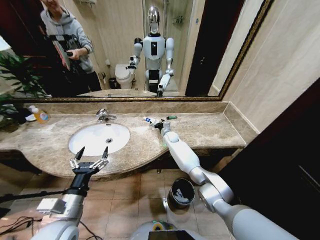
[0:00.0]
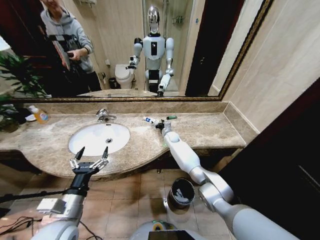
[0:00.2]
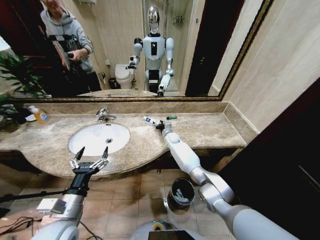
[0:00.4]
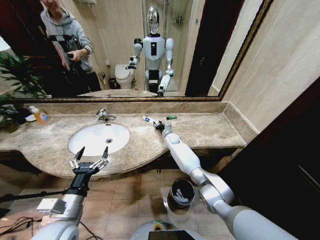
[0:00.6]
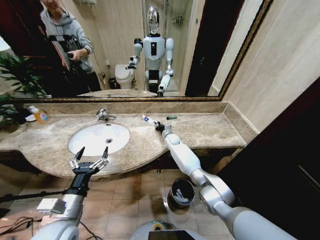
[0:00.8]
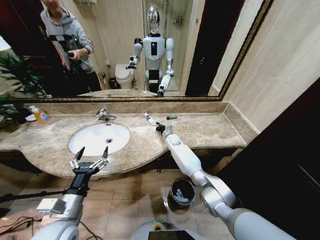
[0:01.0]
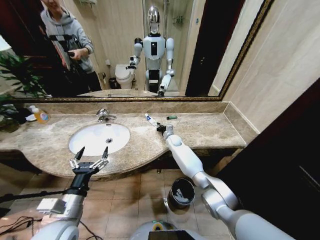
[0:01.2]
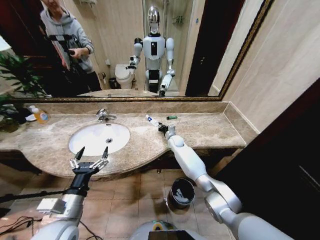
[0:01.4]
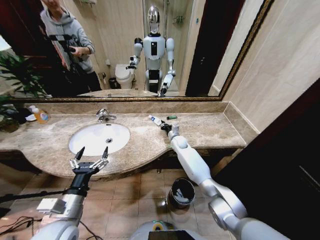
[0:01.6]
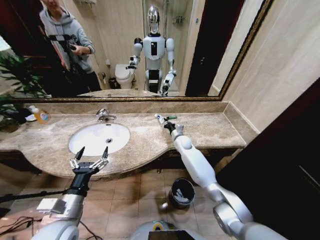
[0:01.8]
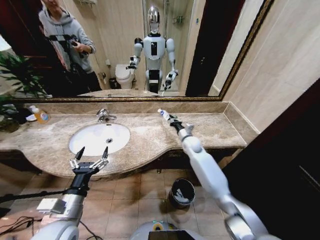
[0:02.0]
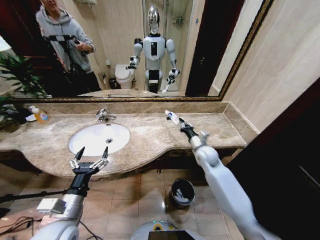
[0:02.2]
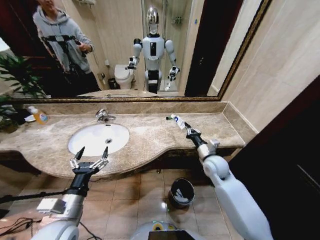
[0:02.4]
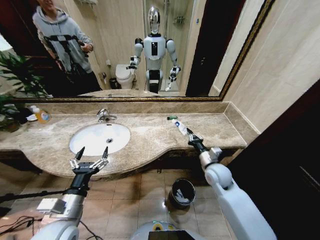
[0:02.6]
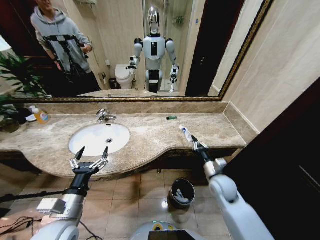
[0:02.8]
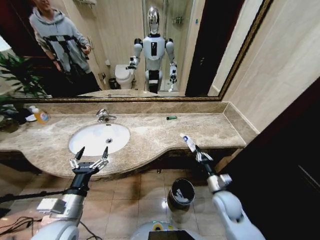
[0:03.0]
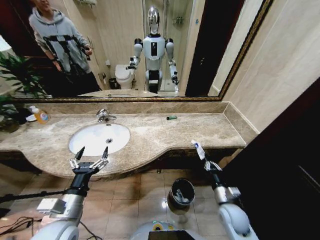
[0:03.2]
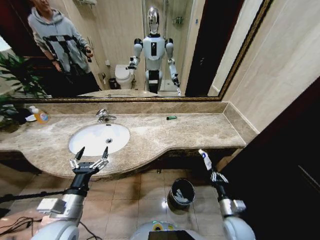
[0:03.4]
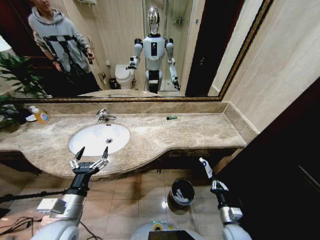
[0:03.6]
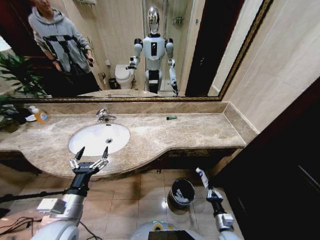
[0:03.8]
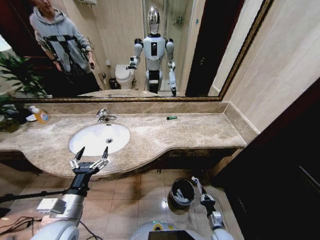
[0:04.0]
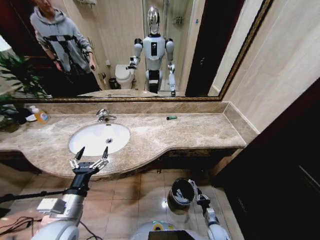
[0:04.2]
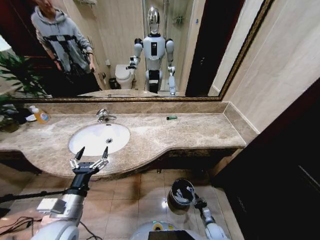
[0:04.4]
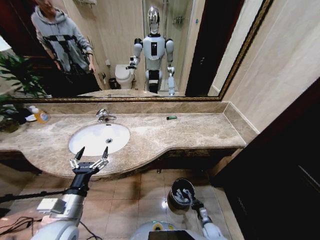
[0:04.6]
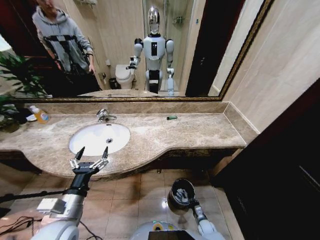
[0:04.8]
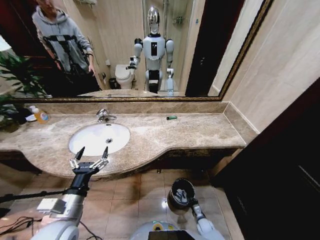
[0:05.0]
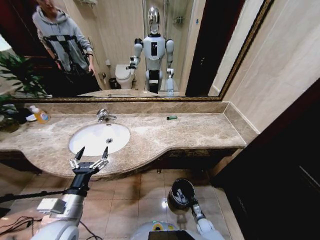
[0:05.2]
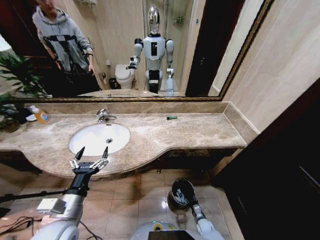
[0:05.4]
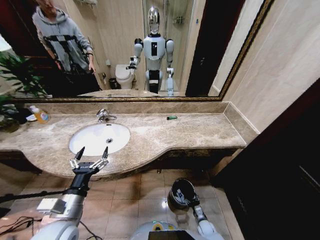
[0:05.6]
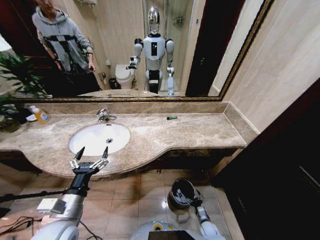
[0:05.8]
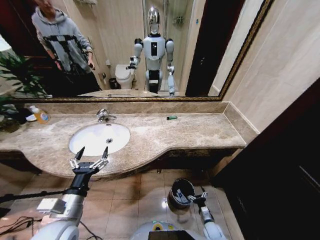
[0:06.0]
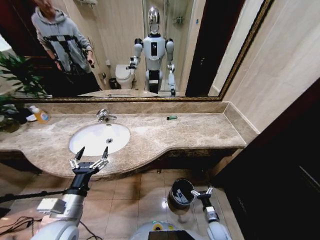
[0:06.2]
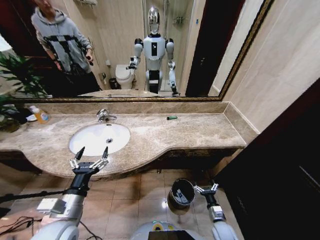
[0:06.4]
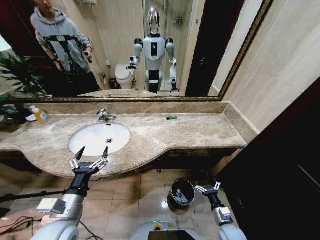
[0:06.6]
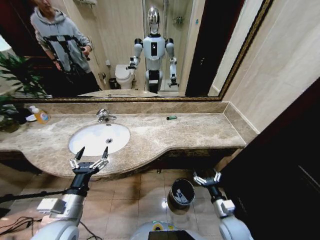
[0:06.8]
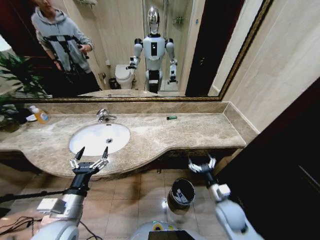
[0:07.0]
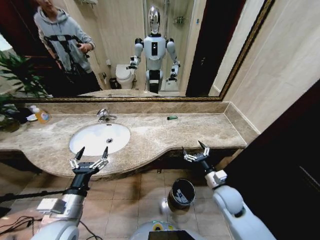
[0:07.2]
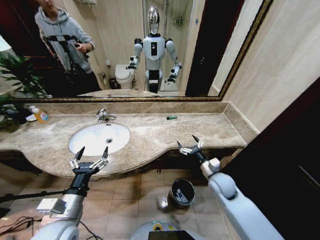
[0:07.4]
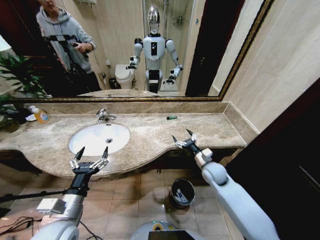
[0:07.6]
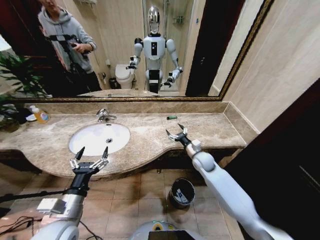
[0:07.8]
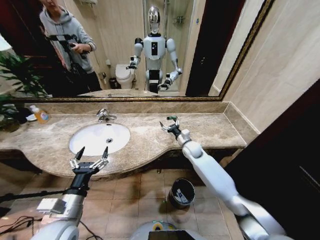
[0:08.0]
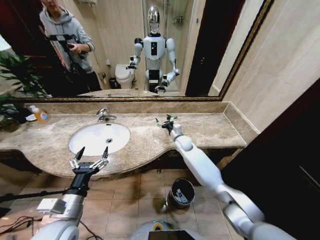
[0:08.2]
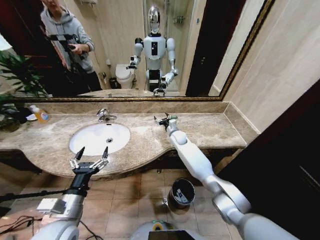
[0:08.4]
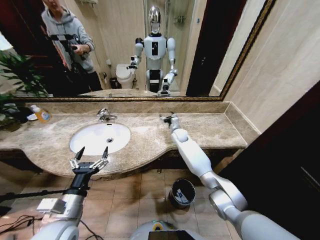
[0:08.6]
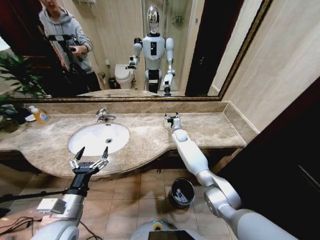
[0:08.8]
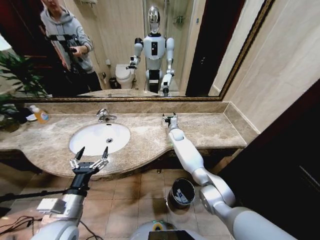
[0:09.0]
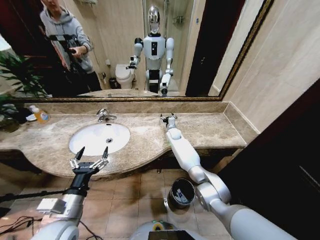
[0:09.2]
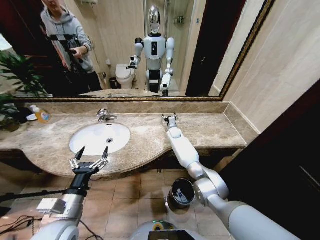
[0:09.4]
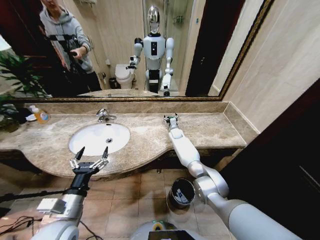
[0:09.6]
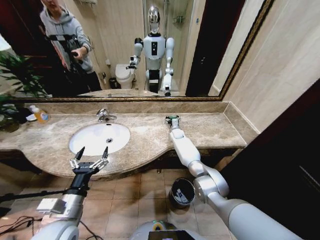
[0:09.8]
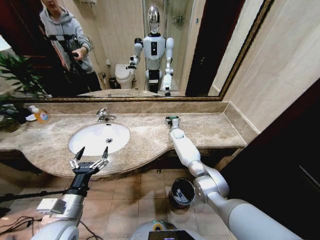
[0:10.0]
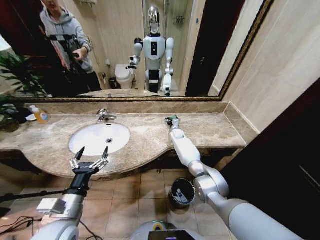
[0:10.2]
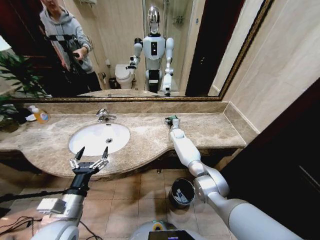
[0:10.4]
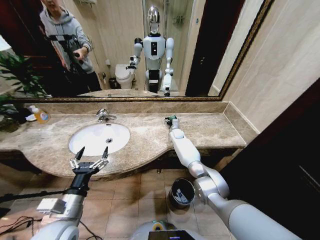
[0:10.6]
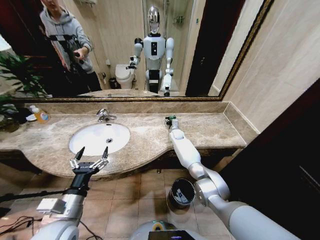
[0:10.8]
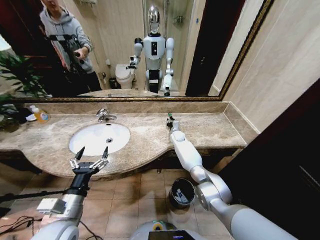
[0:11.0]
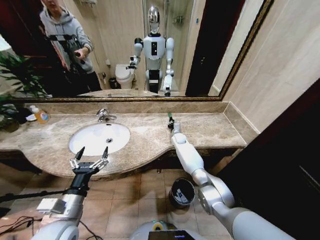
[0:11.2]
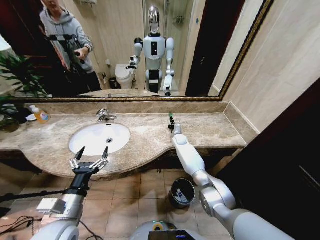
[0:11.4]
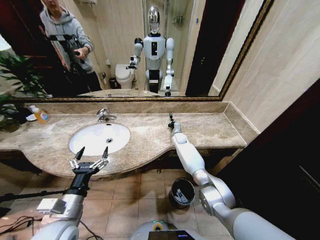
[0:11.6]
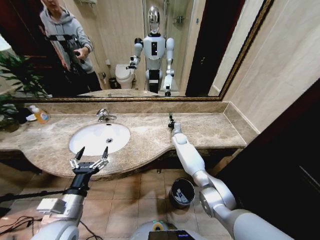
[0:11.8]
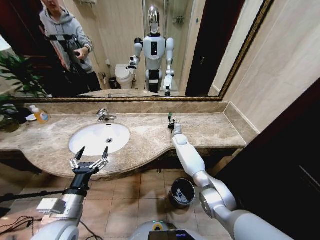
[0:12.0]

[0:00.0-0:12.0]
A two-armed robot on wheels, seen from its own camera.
Task of the whole recording: Pick up the trash from the sink and place it in the trash bin.
0:00.0 to 0:01.6: The right gripper ends up about 5 cm from where it was, and closes.
0:01.6 to 0:03.0: The right gripper goes some 35 cm backward and to the right.
0:03.0 to 0:04.4: The right gripper goes some 30 cm downward.
0:04.4 to 0:06.0: The right gripper opens.
0:06.0 to 0:07.6: The right gripper is displaced upward and forward by about 40 cm.
0:07.6 to 0:09.0: The right gripper goes approximately 30 cm forward and to the left.
0:09.0 to 0:10.4: There are only small adjustments of the grippers.
0:10.4 to 0:12.0: The right gripper closes up.

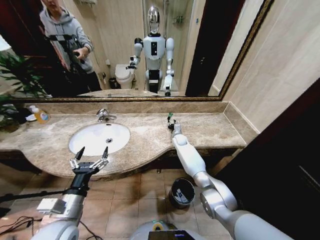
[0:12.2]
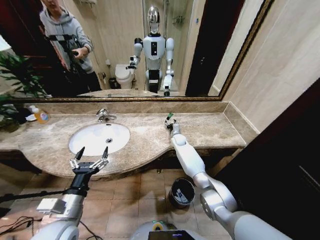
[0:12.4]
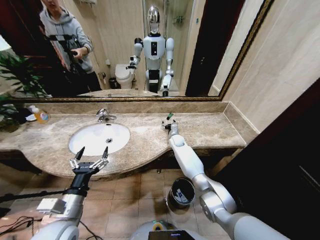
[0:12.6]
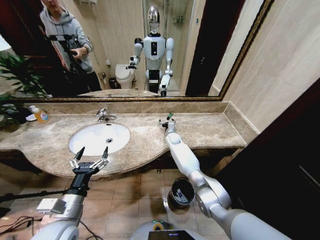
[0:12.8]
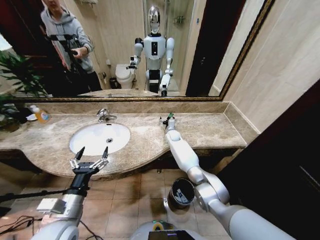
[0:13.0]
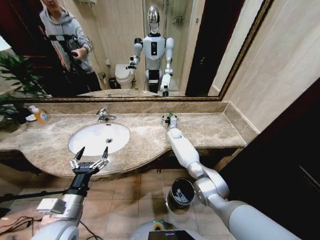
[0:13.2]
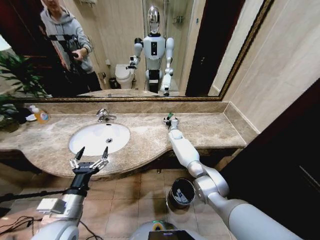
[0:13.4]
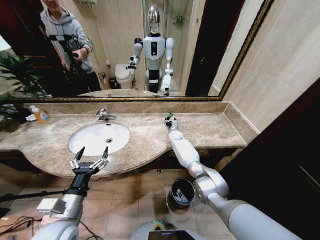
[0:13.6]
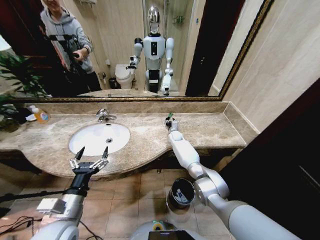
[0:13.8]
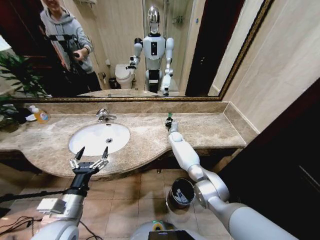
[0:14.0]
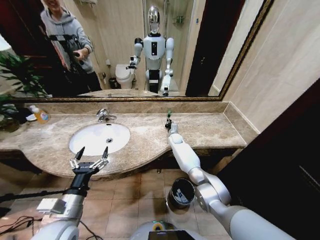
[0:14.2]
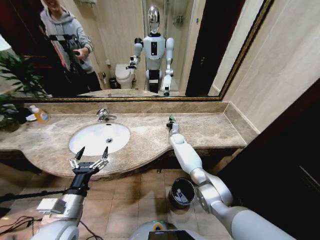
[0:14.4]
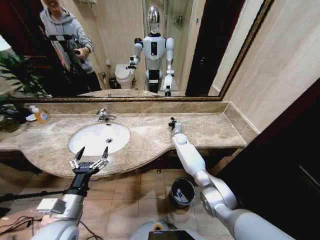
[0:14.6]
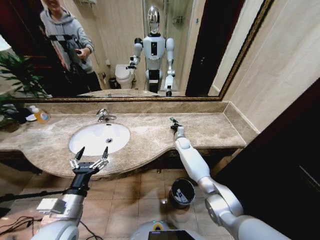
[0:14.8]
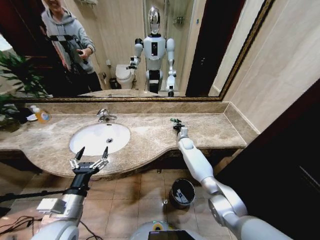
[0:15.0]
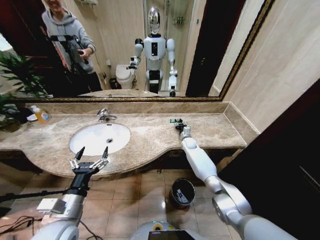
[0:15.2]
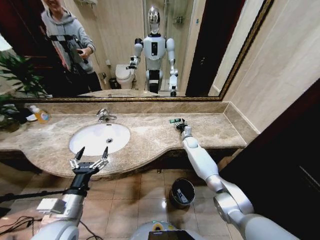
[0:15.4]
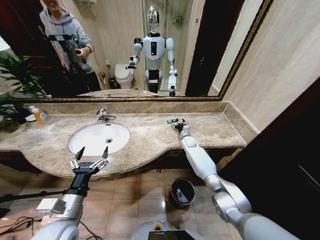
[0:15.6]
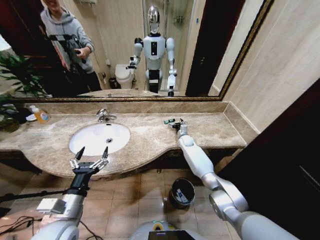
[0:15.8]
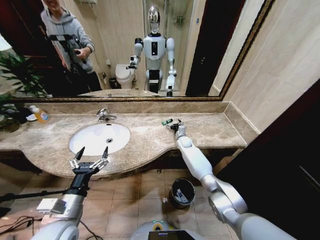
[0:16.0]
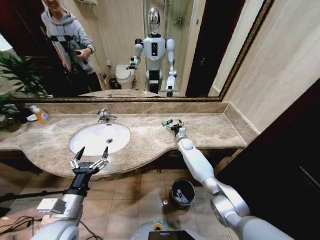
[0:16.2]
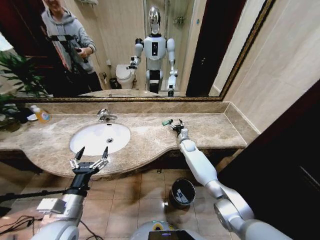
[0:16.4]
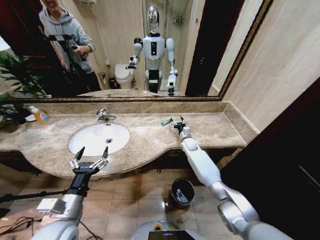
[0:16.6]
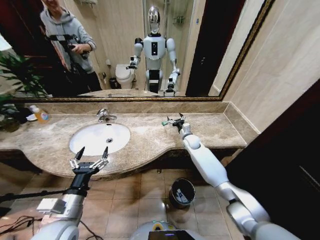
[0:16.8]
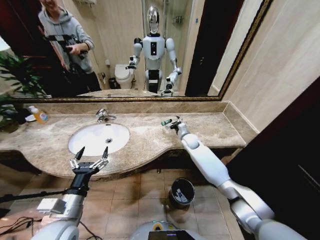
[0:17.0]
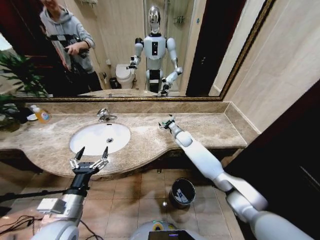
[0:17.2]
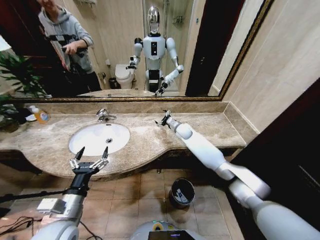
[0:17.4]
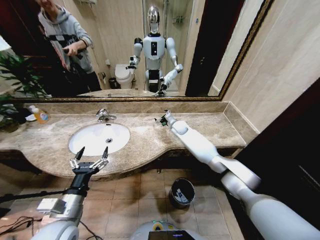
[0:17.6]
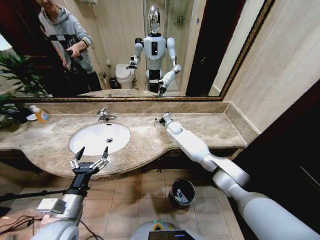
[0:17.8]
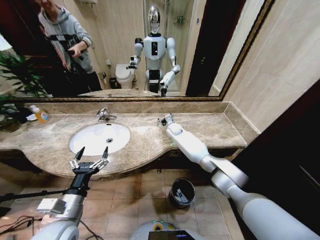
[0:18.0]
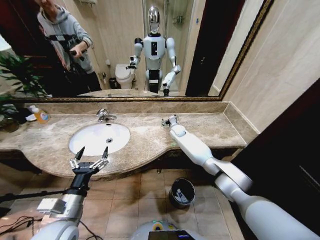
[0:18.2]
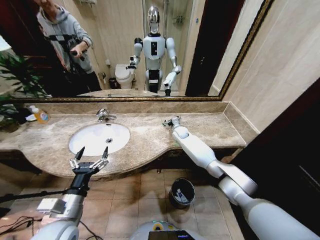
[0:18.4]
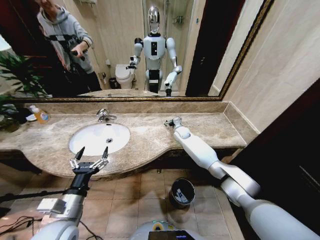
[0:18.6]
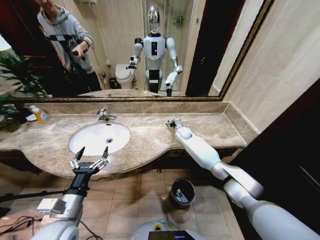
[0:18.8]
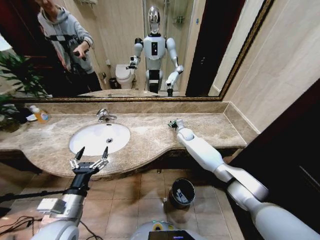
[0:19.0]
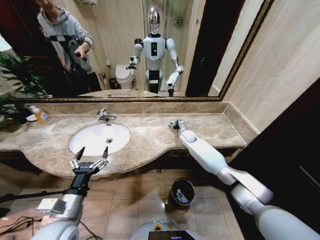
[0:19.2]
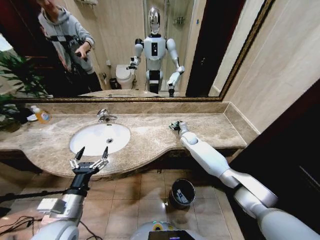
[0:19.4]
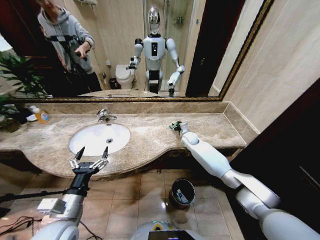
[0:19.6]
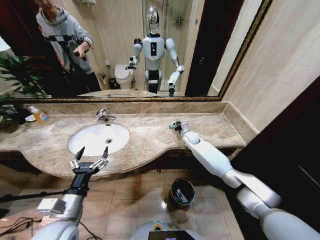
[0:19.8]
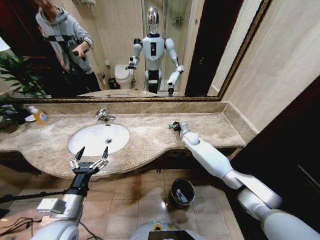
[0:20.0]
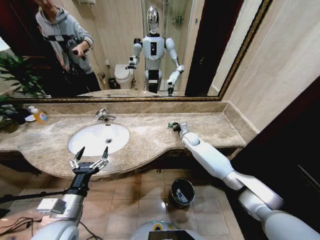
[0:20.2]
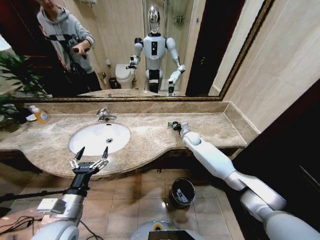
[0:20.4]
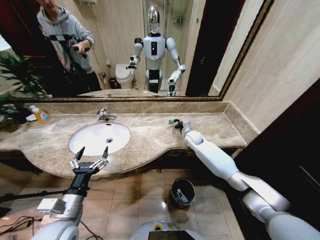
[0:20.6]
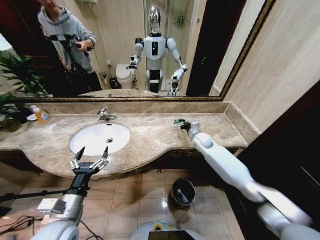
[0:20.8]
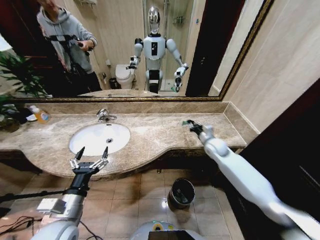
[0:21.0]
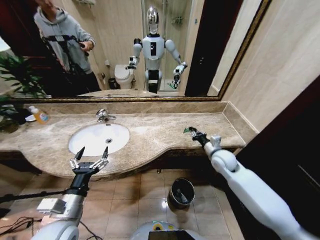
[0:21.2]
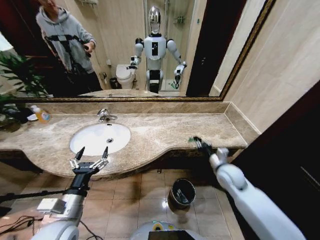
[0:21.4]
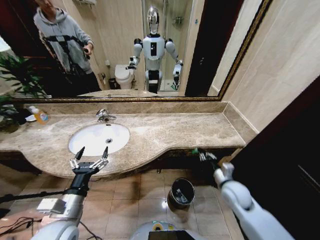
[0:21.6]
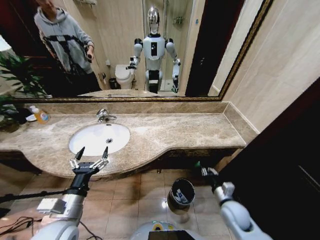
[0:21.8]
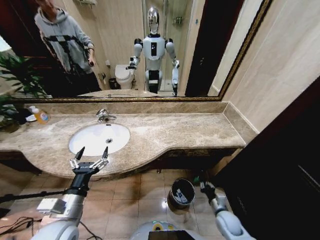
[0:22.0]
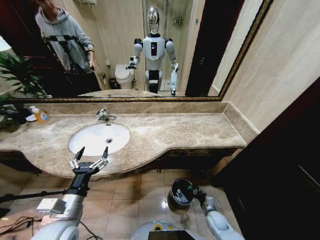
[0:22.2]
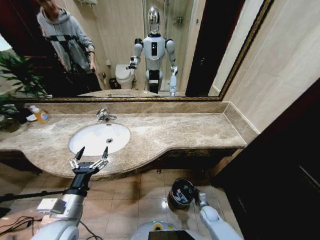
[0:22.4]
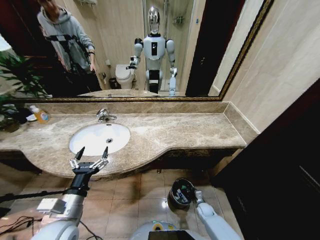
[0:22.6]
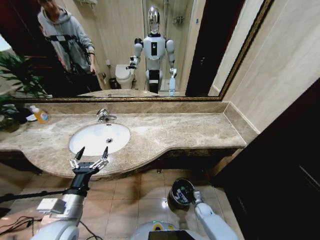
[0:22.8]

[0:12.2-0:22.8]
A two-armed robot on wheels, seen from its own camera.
Task of the whole recording: Pick up the trash from the sink and place it in the trash bin.
0:12.2 to 0:13.8: The right gripper opens and closes again.
0:13.8 to 0:15.2: The right gripper is displaced to the right by approximately 10 cm, and closes and opens again.
0:15.2 to 0:16.8: The right gripper moves upward, approximately 5 cm, and opens up.
0:16.8 to 0:18.2: The right gripper is displaced to the left and forward by approximately 10 cm.
0:18.2 to 0:19.8: The right gripper is displaced to the right by some 5 cm, and closes up.
0:19.8 to 0:21.2: The right gripper goes about 20 cm backward and to the right.
0:21.2 to 0:22.8: The right gripper heads downward, covering approximately 40 cm.
